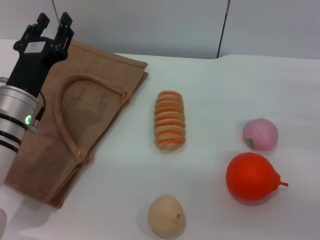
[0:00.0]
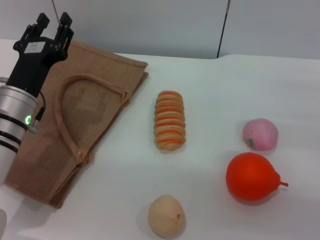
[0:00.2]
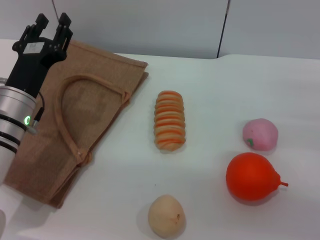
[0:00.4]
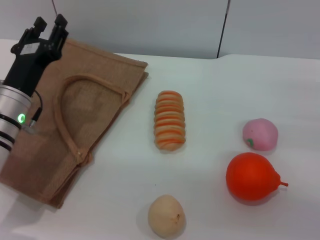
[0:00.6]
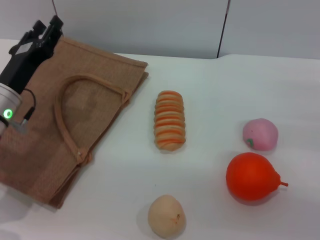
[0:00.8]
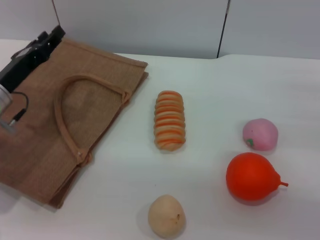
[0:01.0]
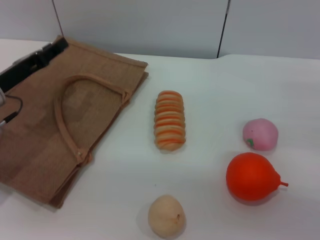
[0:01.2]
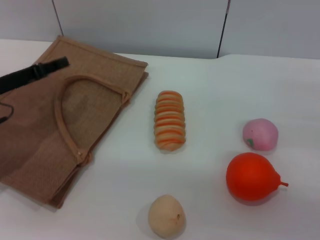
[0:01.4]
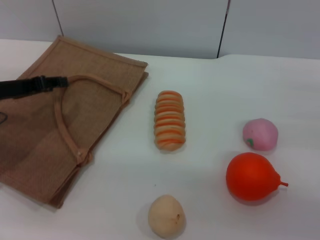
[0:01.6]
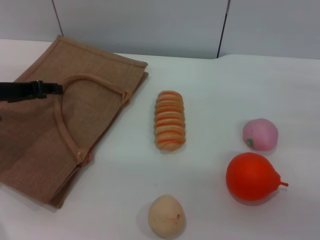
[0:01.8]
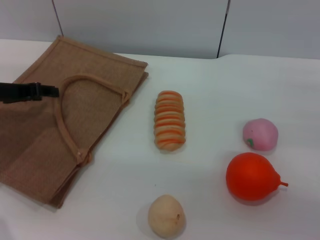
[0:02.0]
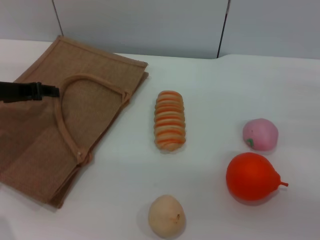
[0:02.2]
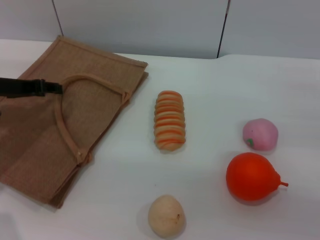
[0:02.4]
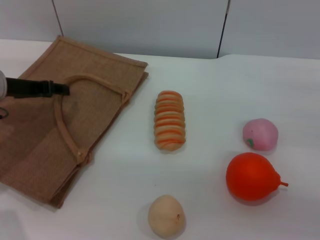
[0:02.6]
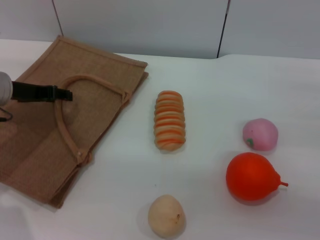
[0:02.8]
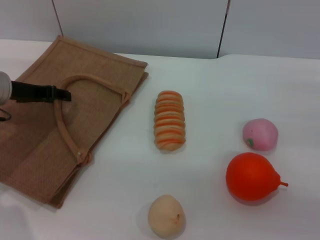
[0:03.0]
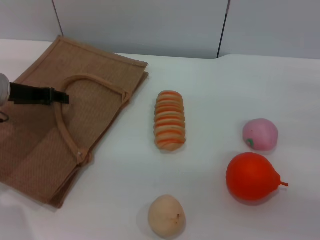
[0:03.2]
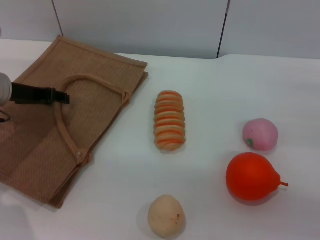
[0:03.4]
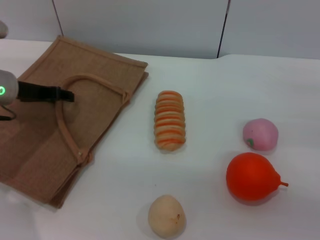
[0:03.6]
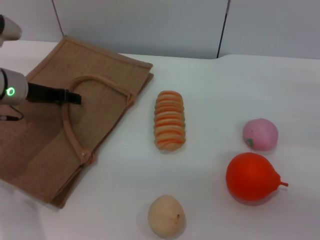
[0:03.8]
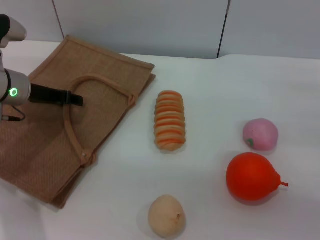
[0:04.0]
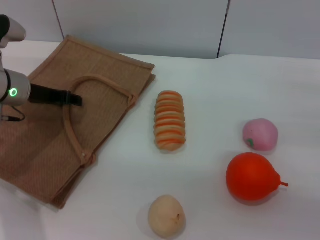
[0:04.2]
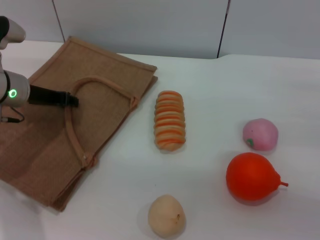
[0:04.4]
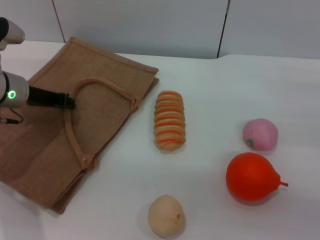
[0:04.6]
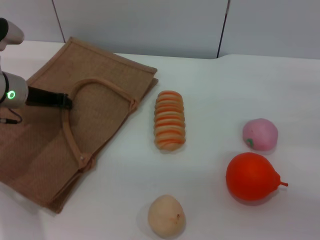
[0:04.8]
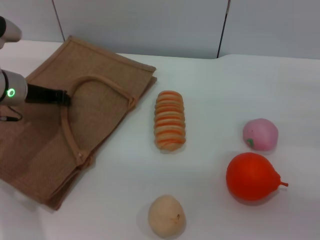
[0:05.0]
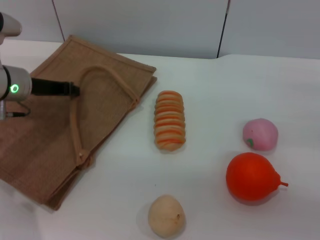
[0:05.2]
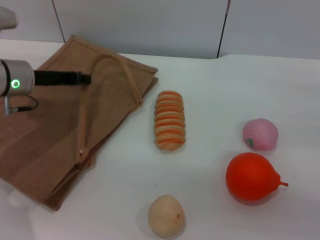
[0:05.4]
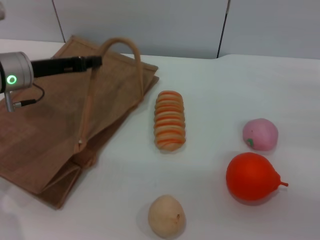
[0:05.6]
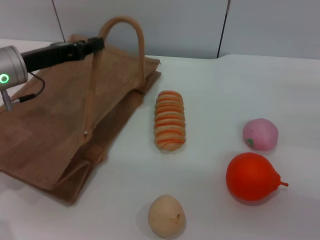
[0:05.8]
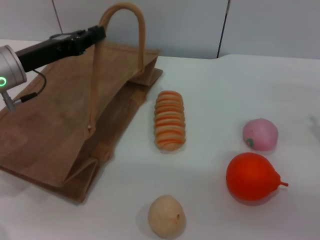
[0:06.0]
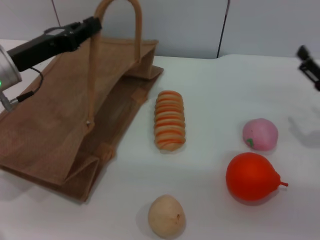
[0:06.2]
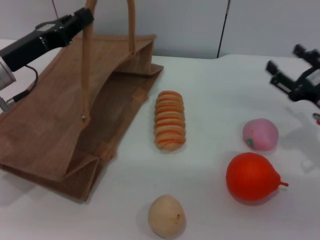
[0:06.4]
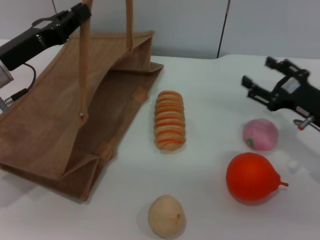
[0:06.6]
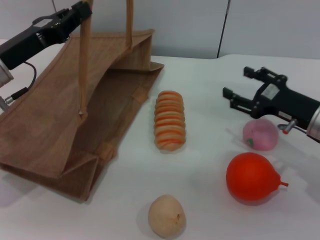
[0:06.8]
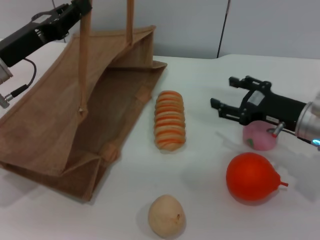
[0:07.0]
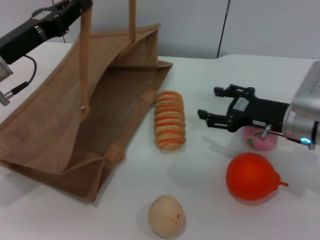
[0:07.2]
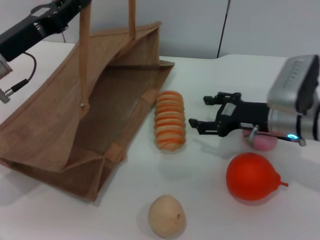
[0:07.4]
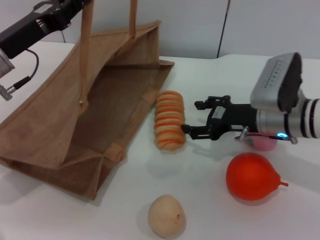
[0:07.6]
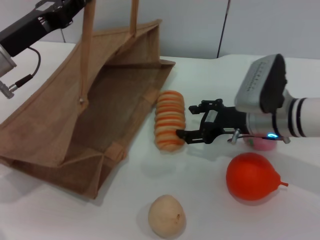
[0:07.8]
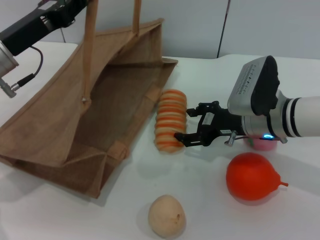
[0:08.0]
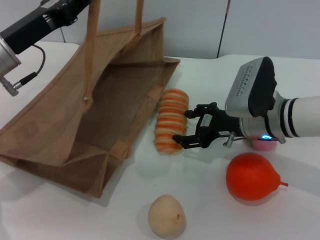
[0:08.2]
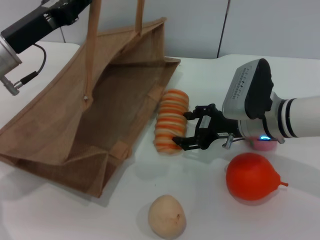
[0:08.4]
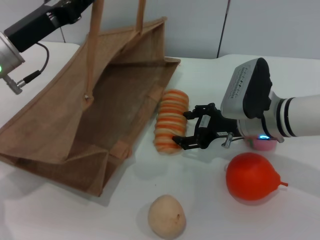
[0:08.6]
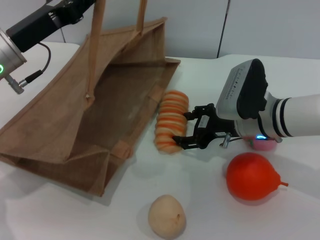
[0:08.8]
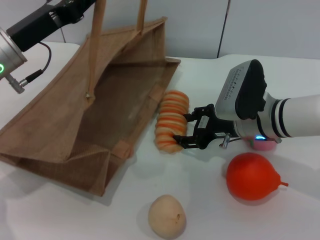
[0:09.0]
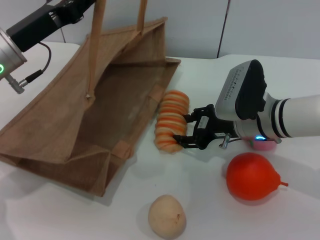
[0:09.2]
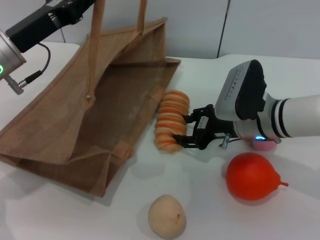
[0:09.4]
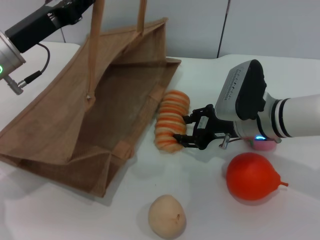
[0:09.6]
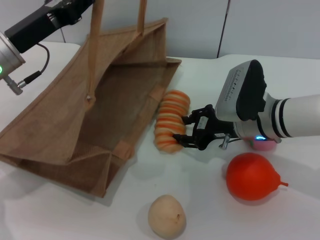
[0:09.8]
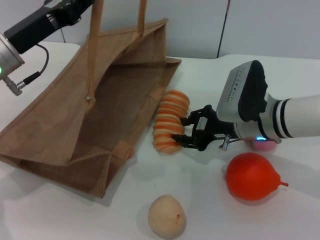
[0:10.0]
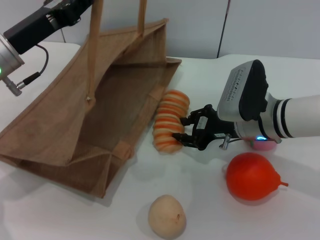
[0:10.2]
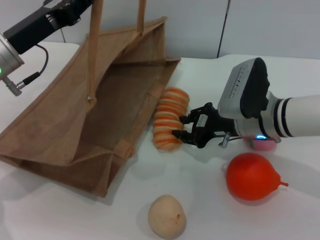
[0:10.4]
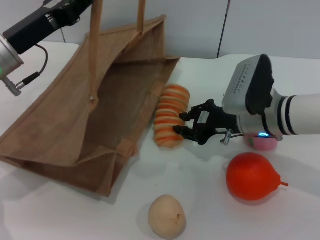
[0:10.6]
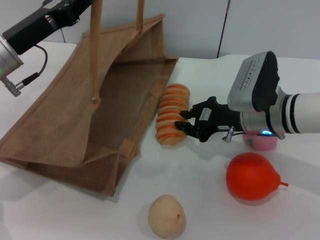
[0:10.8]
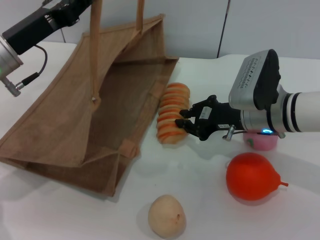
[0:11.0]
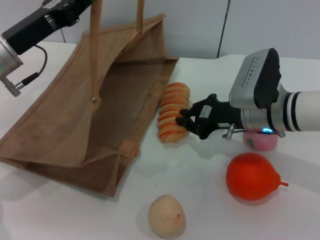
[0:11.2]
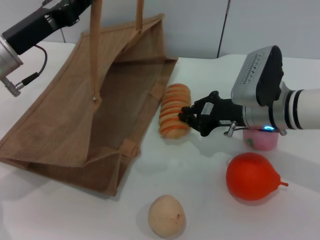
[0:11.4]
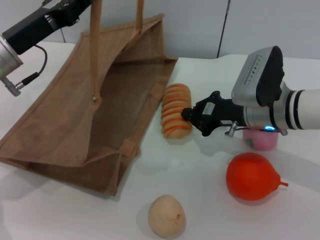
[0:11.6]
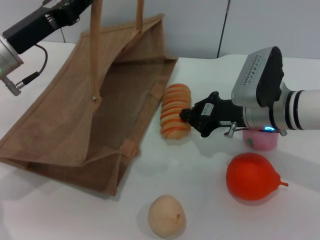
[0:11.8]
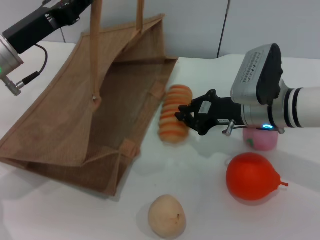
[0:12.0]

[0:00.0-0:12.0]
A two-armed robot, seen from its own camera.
Task of the whole recording: pick up the bread and egg yolk pastry from the table and place it in the brown handbag.
Step, 0:00.0 to 0:06.0: Lift the woven bag with the left gripper to open it.
0:00.0 to 0:01.6: The left gripper moves to the left, about 10 cm.
0:01.6 to 0:03.0: The grippers move only a little.
0:03.0 to 0:04.4: There are only small adjustments of the grippers.
0:04.4 to 0:06.0: The left gripper closes up.
0:06.0 to 0:07.6: The right gripper moves to the left and forward, about 15 cm.
0:07.6 to 0:09.0: There are only small adjustments of the grippers.
0:09.0 to 0:10.4: The right gripper closes its fingers.
0:10.4 to 0:12.0: The right gripper closes its fingers.

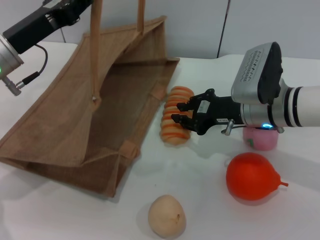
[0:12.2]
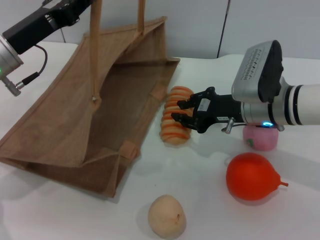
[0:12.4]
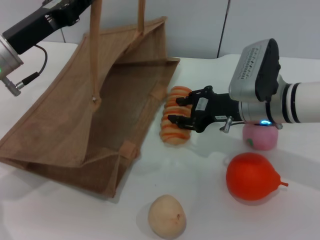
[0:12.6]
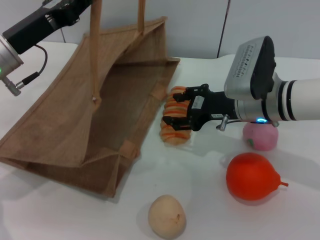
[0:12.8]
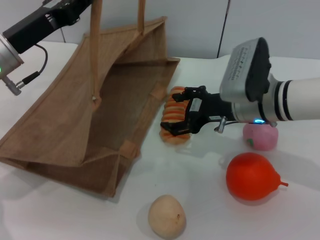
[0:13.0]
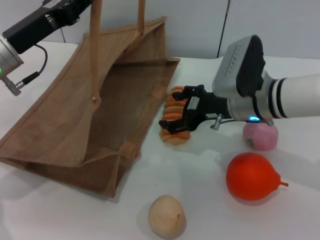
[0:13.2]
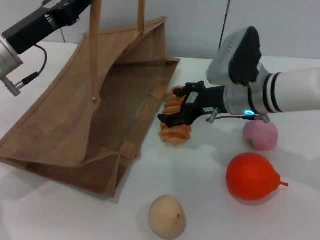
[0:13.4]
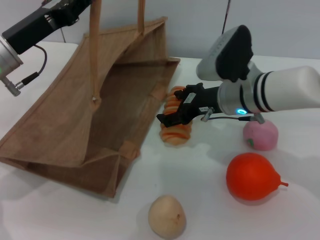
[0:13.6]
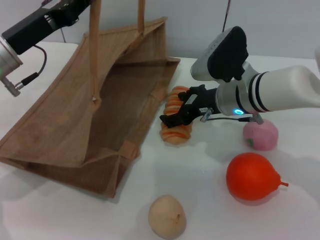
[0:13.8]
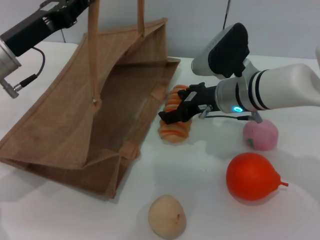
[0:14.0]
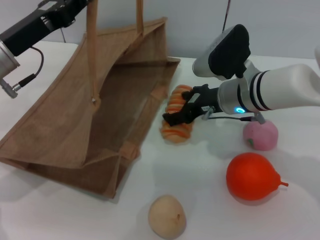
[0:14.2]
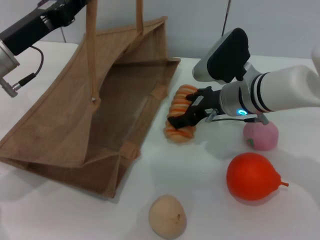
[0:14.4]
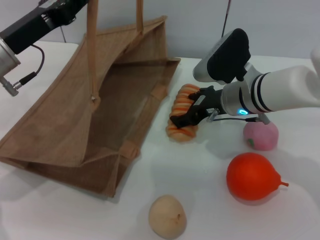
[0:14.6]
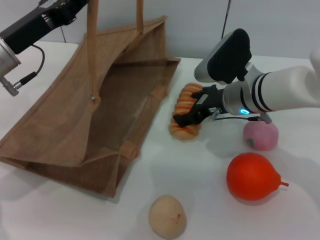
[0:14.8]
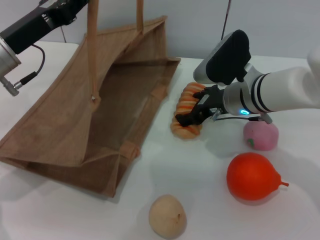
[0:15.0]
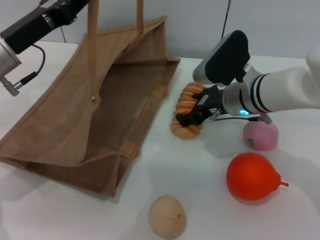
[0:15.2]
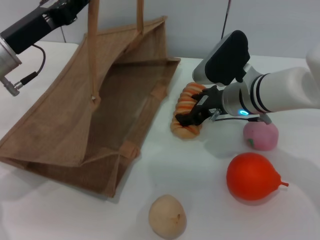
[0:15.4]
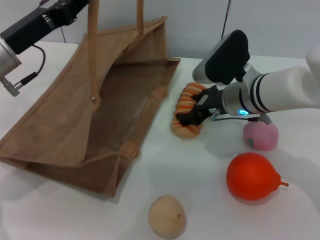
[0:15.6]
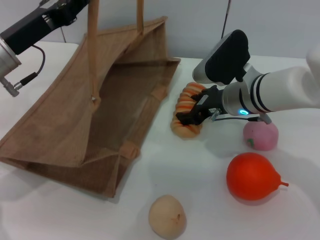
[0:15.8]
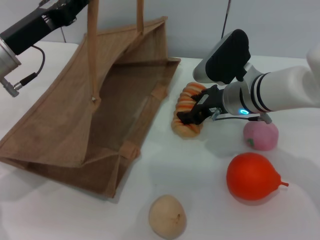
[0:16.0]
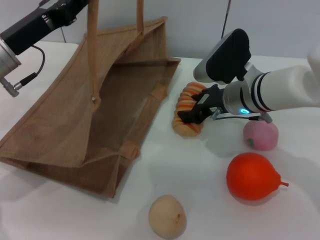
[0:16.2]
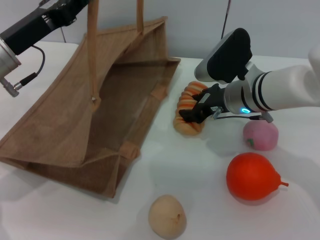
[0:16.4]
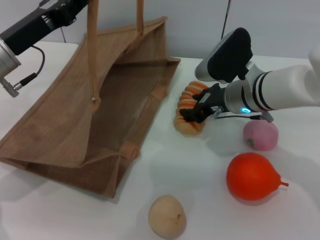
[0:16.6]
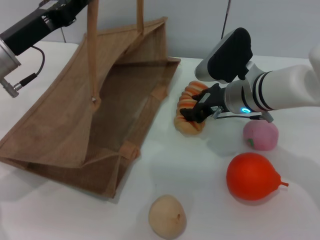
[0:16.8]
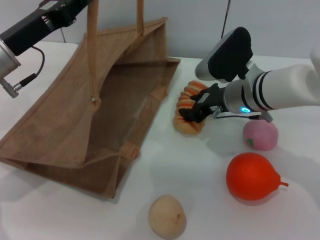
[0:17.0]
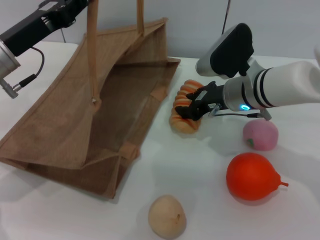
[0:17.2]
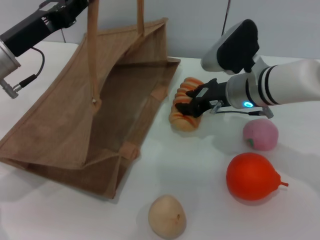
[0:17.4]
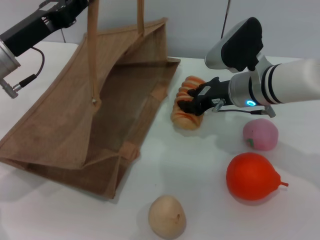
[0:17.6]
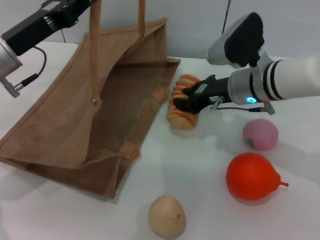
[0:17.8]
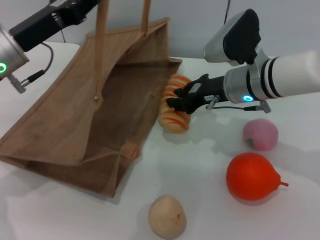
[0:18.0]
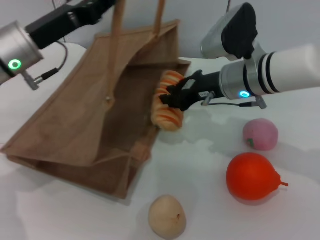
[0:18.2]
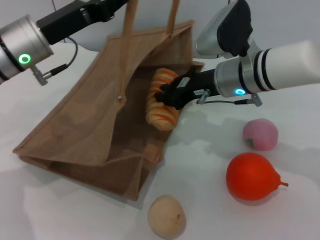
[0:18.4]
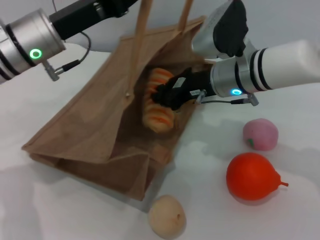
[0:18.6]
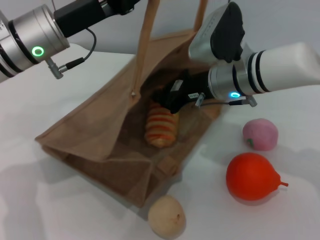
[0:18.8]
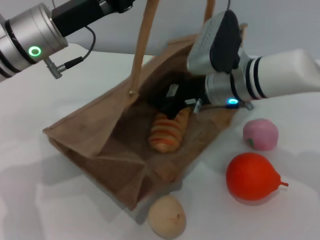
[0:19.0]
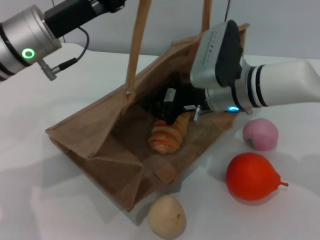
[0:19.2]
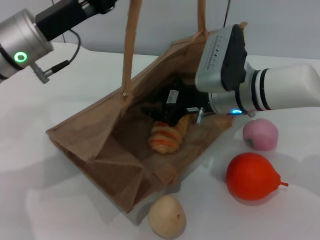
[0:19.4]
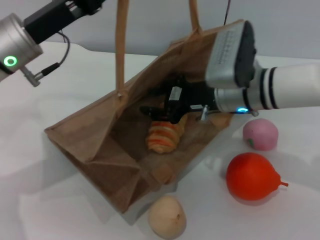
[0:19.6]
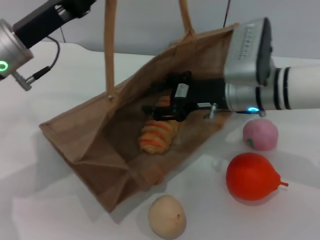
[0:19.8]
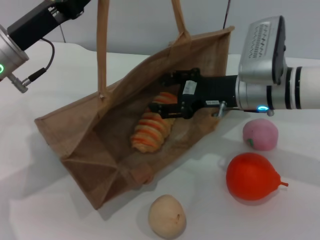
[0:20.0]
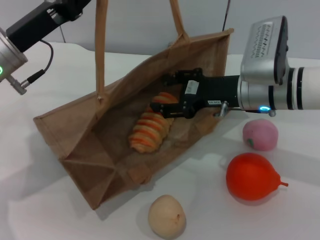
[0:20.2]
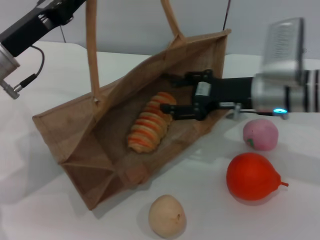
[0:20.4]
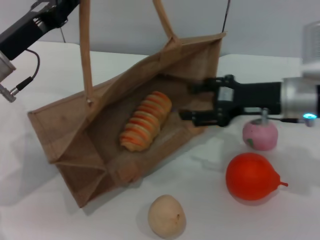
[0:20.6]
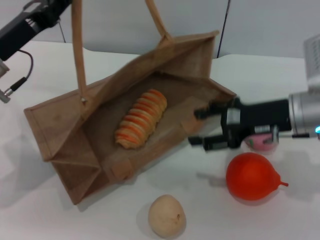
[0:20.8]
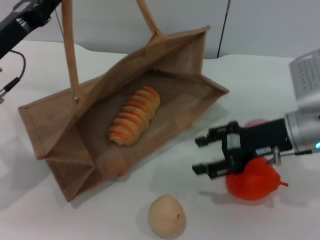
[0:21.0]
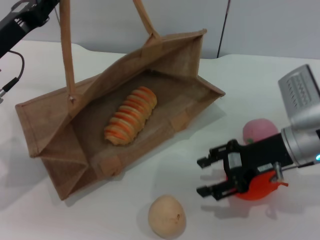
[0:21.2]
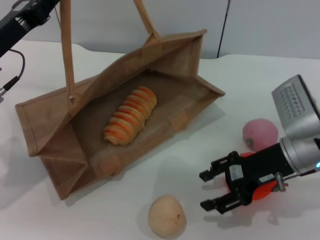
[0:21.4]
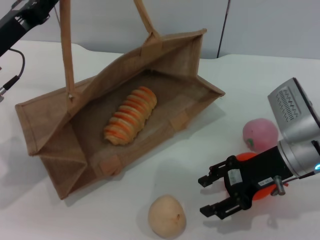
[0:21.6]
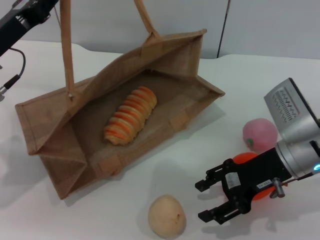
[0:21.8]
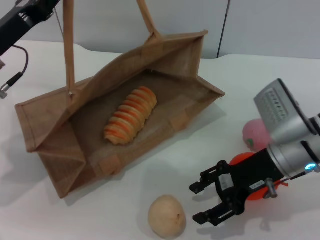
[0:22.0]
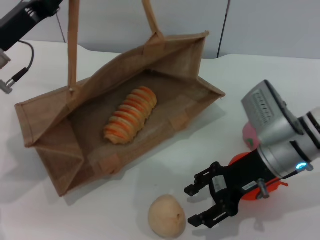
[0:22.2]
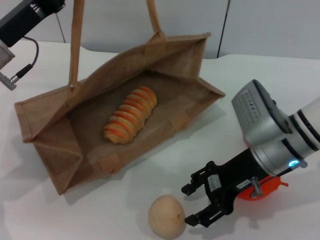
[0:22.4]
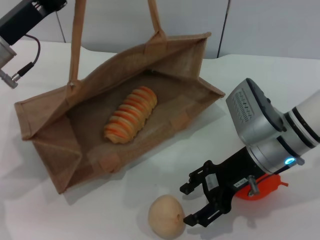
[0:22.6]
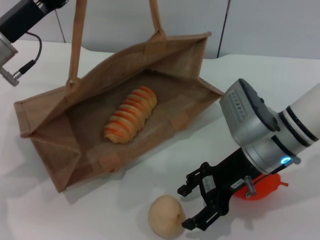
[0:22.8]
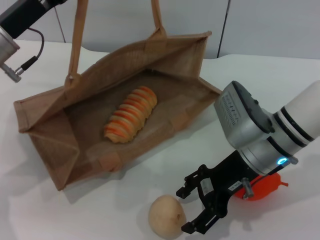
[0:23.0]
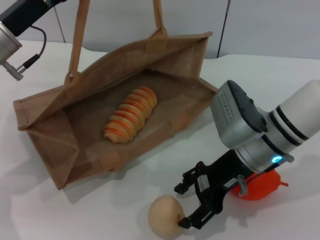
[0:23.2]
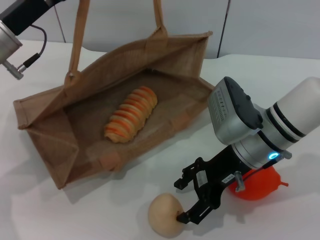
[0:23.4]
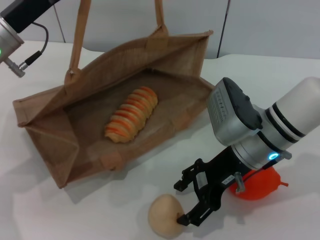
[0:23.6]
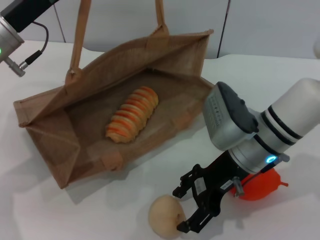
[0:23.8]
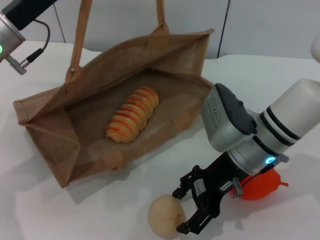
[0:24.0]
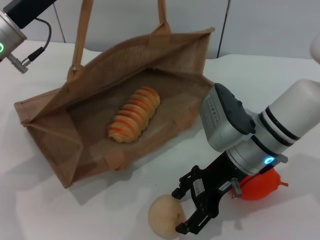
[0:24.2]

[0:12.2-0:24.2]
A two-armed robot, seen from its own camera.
Task of the whole recording: pick up the bread and egg yolk pastry from the table and place it in the brown handbag.
Step, 0:12.2 to 0:17.8: Pick up the bread with the right gripper.
Step, 0:18.0 to 0:19.0: Place the bread into the woven bag with the right gripper.
0:12.2 to 0:13.8: The right gripper opens up.
0:13.8 to 0:15.2: The grippers move only a little.
0:15.2 to 0:16.6: Neither gripper changes place.
0:19.8 to 0:21.2: The right gripper moves to the right, roughly 10 cm. The left gripper moves about 5 cm.
0:21.2 to 0:22.6: The right gripper is displaced to the left by approximately 5 cm.
